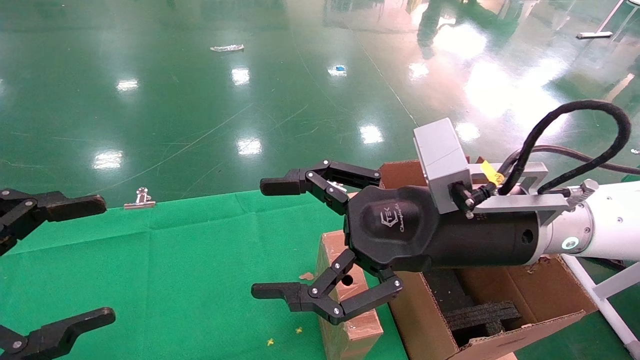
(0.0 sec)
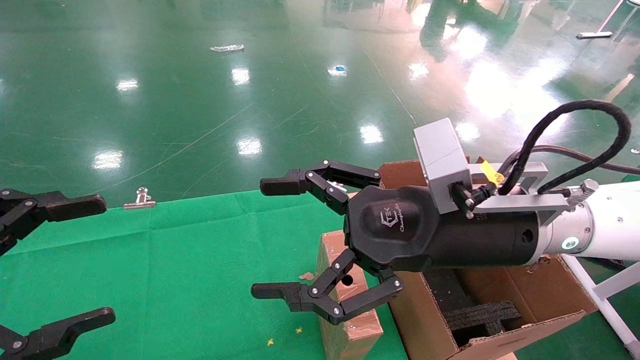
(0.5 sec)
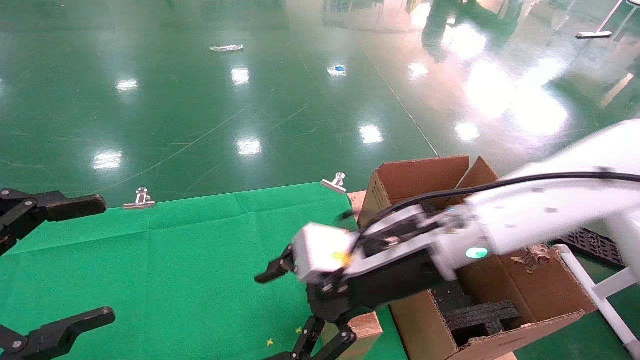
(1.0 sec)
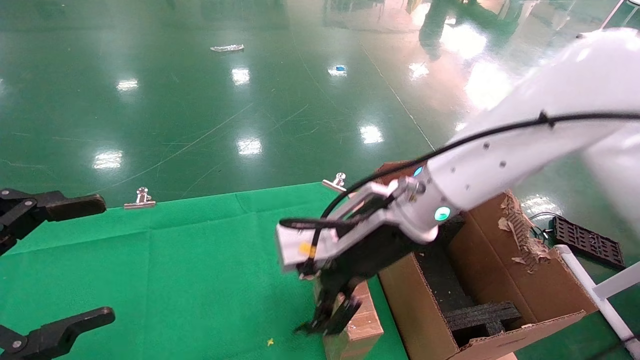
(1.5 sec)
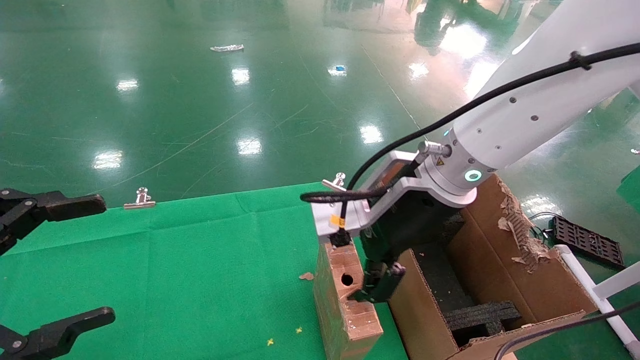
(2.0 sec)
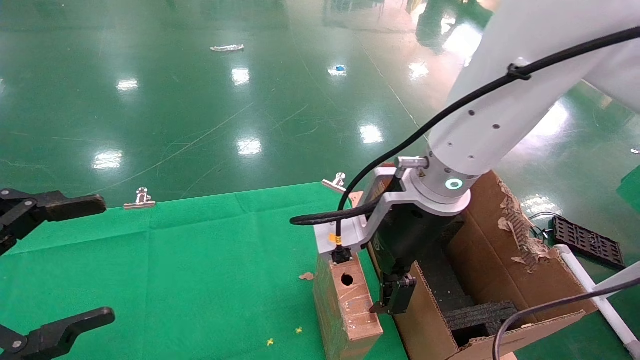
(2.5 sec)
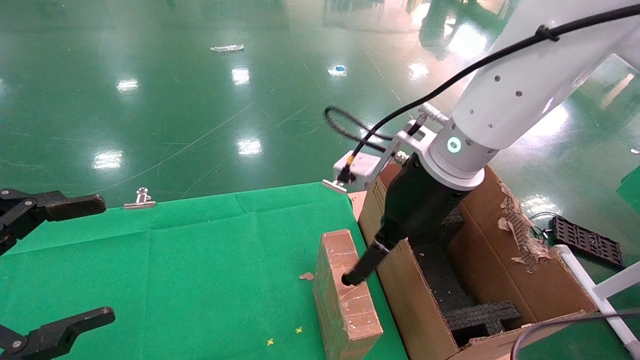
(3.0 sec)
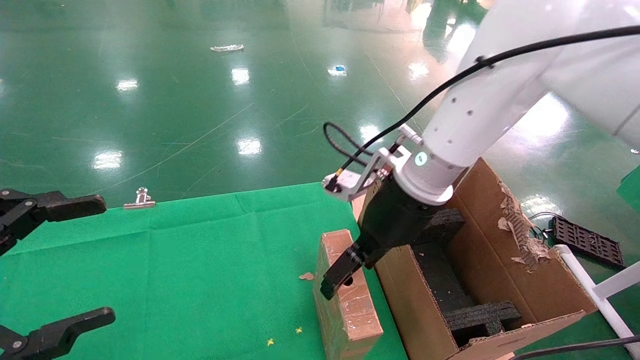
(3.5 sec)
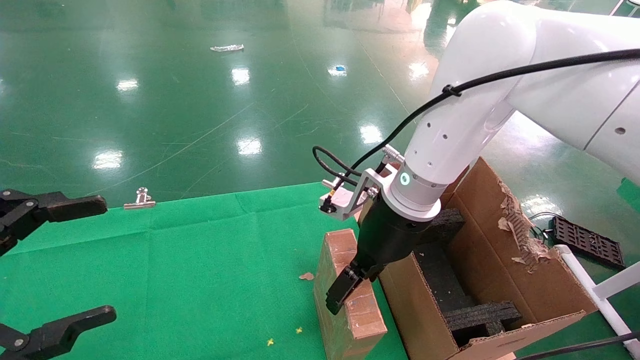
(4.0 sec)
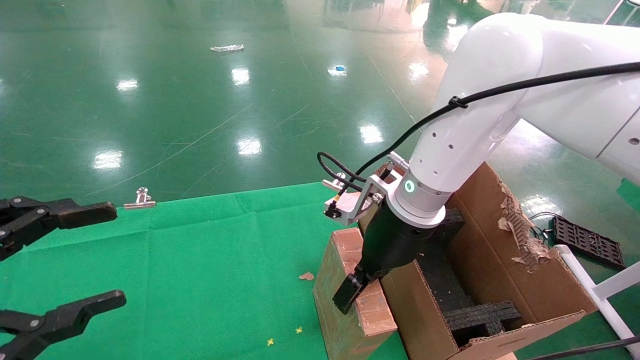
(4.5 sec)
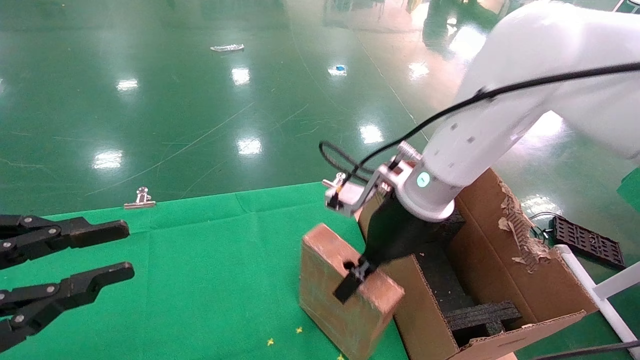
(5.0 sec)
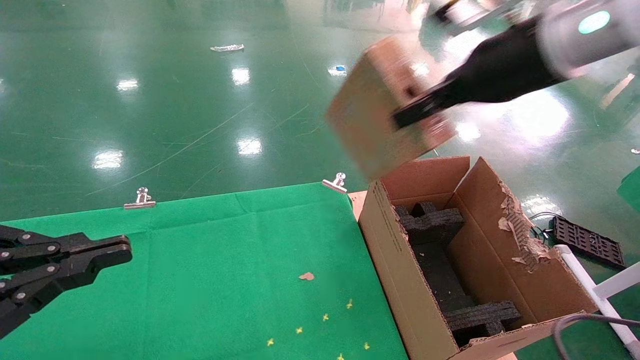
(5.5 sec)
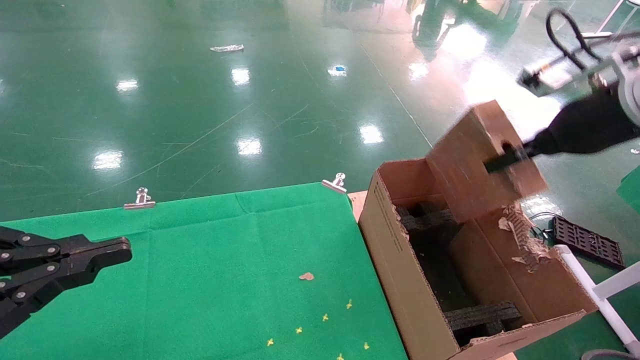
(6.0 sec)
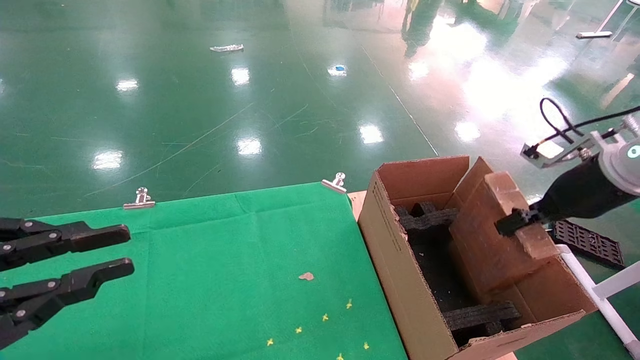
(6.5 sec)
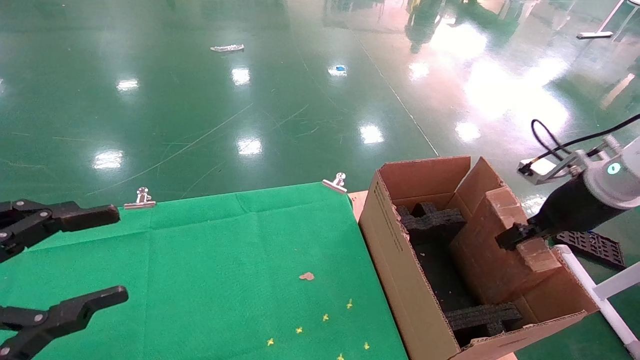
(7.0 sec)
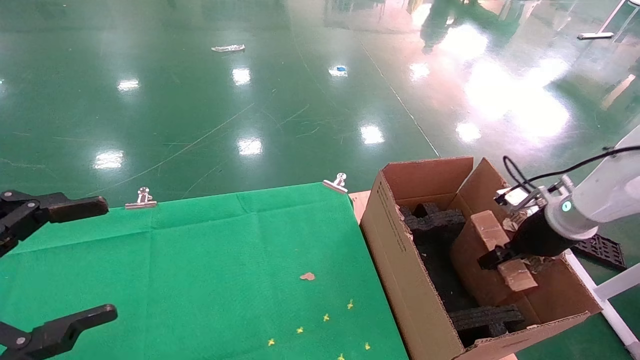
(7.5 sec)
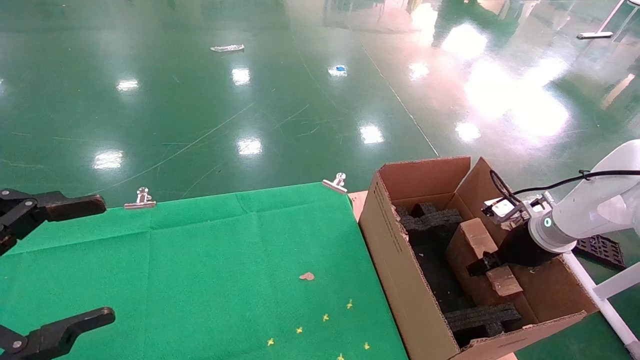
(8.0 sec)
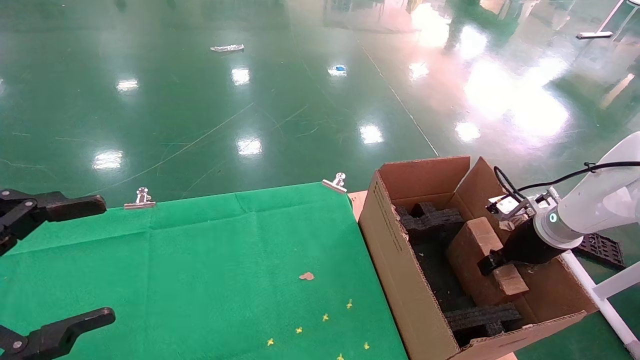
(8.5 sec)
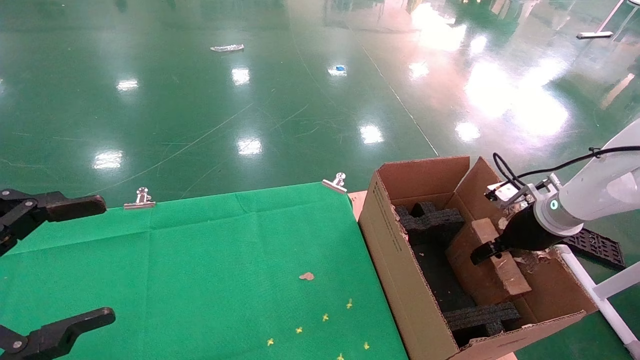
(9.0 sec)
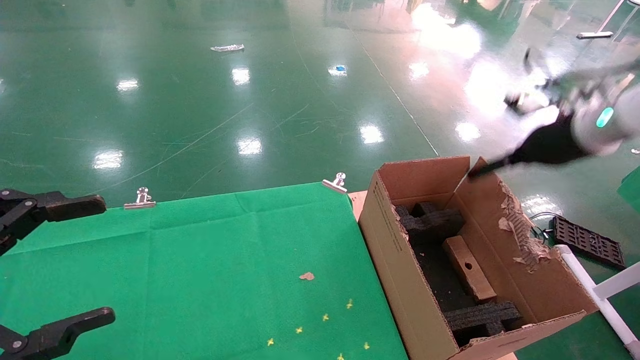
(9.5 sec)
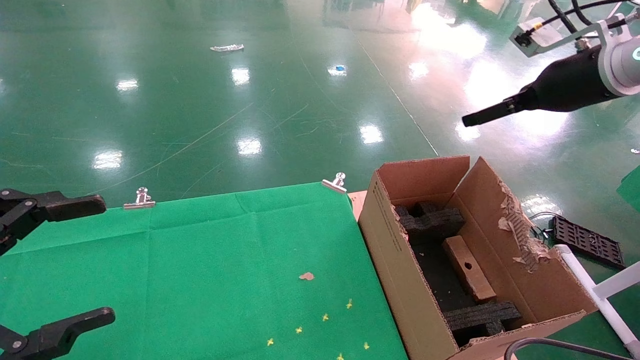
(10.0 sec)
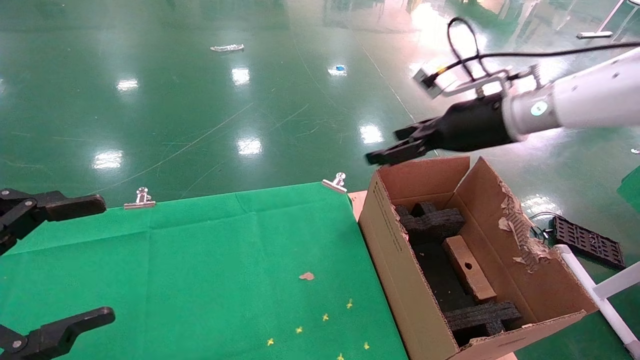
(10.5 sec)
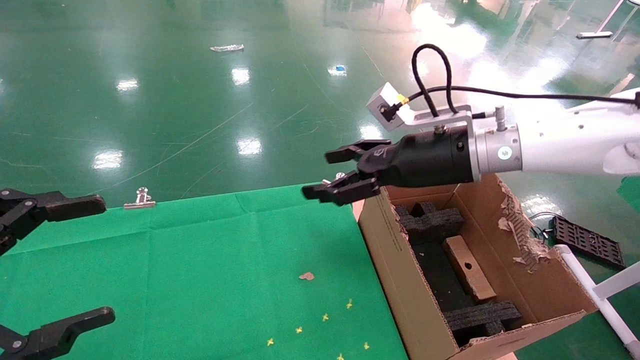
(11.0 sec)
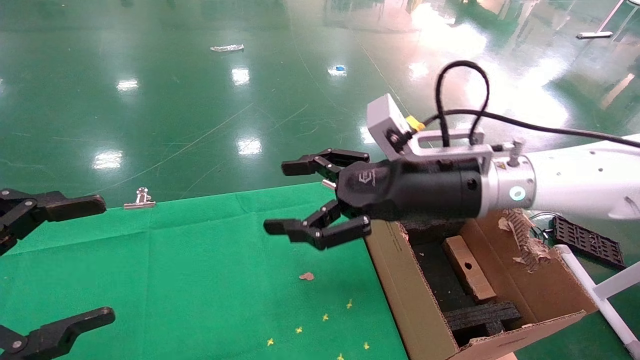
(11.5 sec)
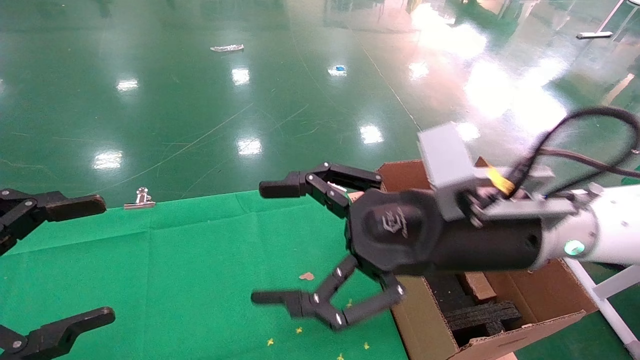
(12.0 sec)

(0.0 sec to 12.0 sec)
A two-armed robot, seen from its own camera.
Task of the whole recording: using a robotic arm to pick up a cardboard box and palace it the carton.
Step, 1.0 sec - 5.0 sec: Pick up the mouse and the power cord paper box.
Step, 5.5 sec - 9.5 sec: Place the mouse and the power cord paper box into the container.
0.0 sec - 2.0 sec: The right gripper is displaced forward by approximately 5 cm.
2.0 sec - 4.0 sec: The right gripper changes place by some 5 cm.
4.0 sec - 6.0 sec: The left gripper closes up, while the right gripper travels to the right and upward by about 25 cm, and closes.
6.0 sec - 8.0 sec: The right gripper moves downward, roughly 20 cm; the left gripper opens.
8.0 sec - 10.0 sec: The right gripper shifts roughly 25 cm upward, and opens its fingers.
10.0 sec - 12.0 sec: The right gripper moves to the left, backward and downward, approximately 25 cm.

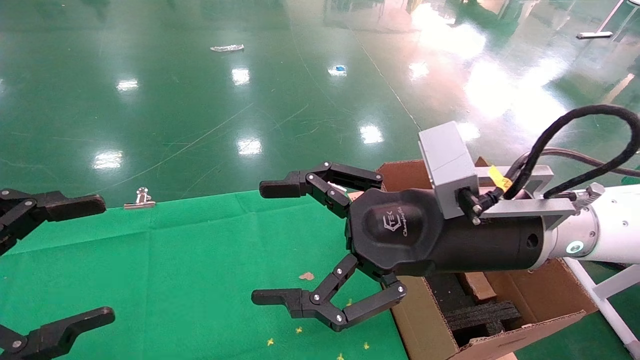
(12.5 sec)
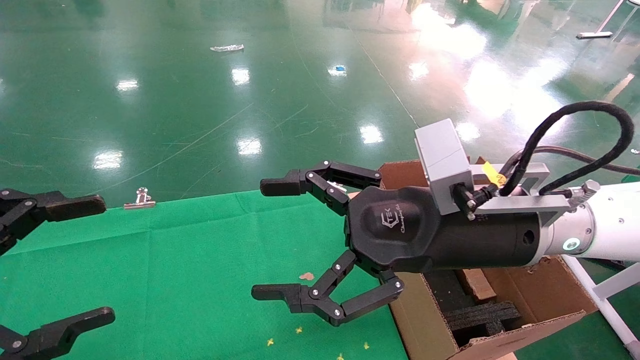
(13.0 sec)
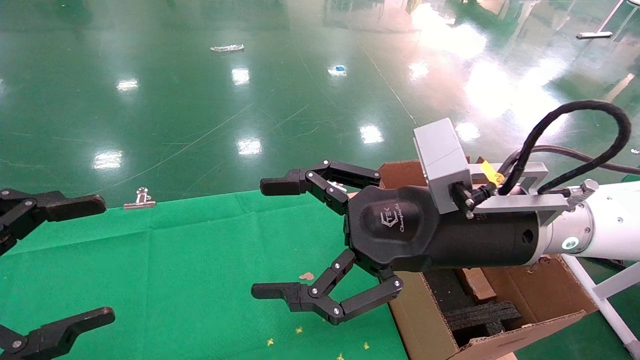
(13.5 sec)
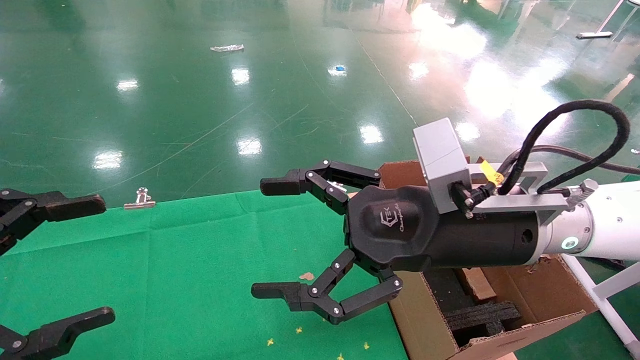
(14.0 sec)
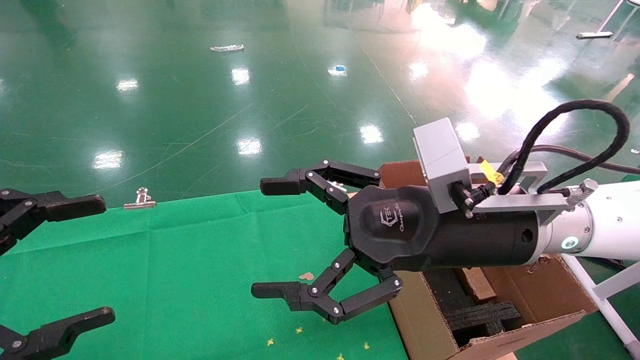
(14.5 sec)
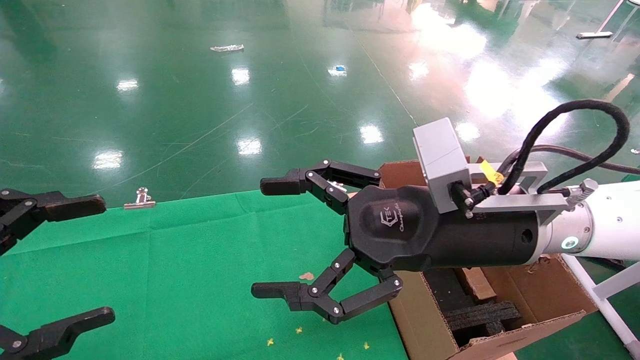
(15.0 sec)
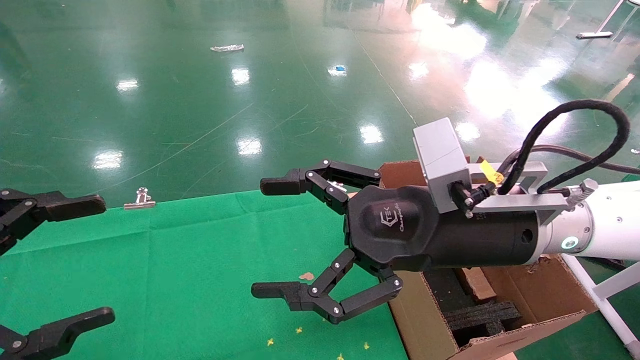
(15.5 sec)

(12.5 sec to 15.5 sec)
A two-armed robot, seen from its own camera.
Task of the whole recording: using a robotic arm to pick up a cardboard box and palace it the carton.
12.5 sec - 15.5 sec: Both grippers stay put.
